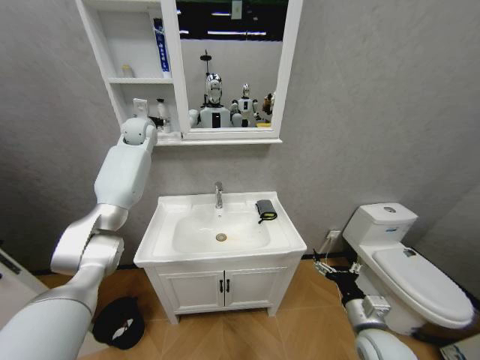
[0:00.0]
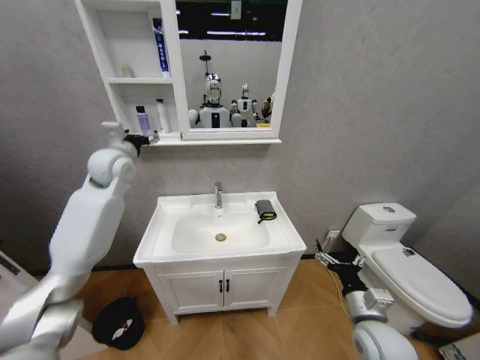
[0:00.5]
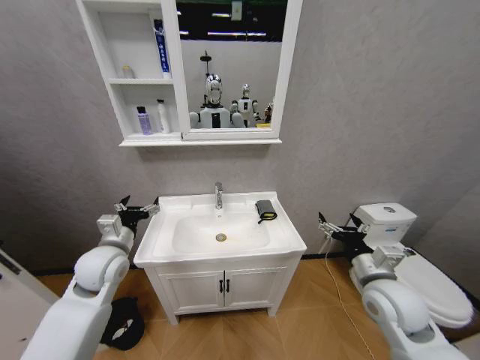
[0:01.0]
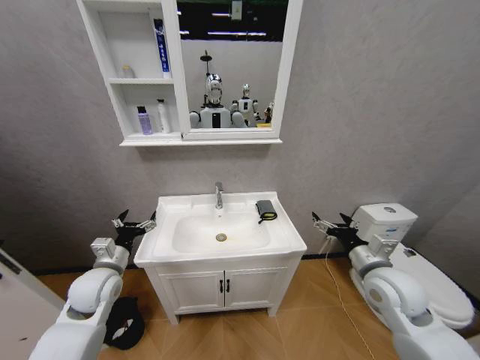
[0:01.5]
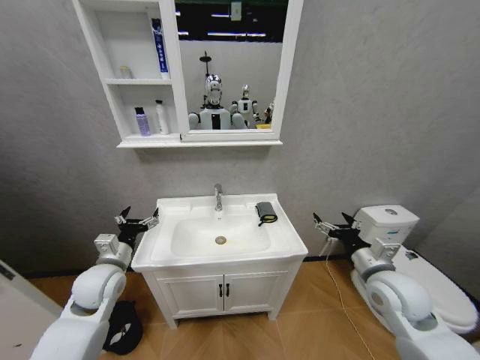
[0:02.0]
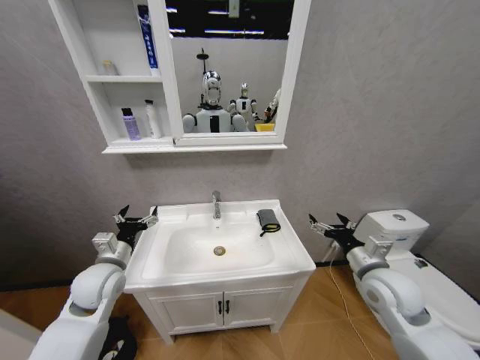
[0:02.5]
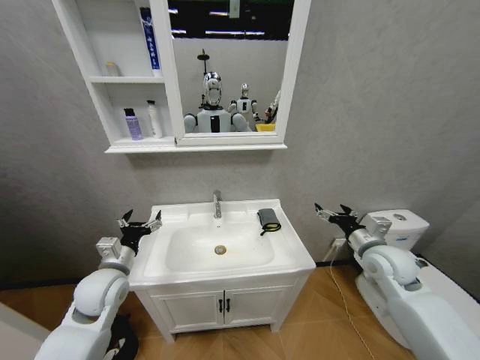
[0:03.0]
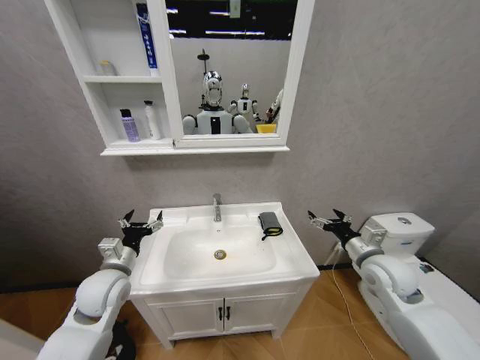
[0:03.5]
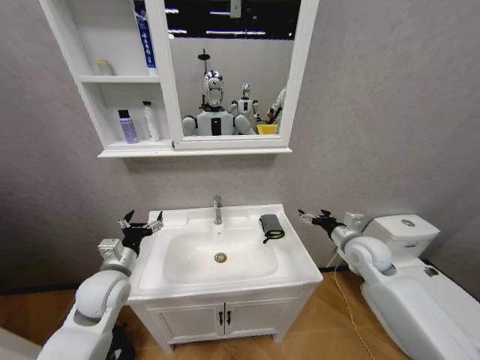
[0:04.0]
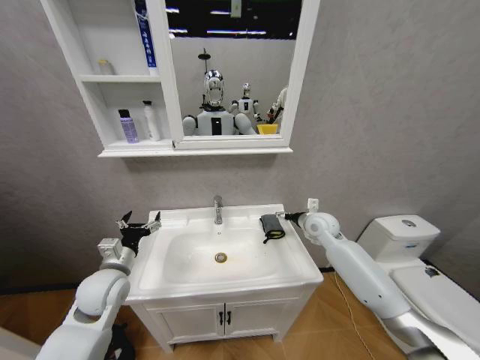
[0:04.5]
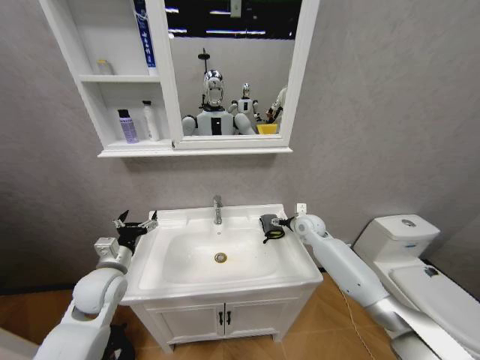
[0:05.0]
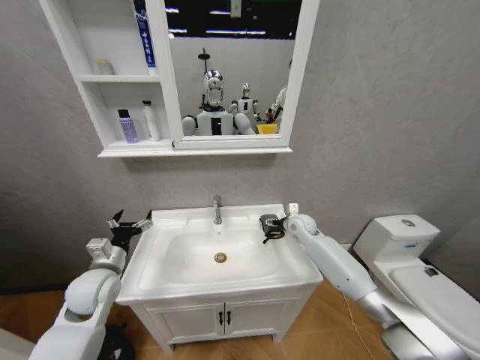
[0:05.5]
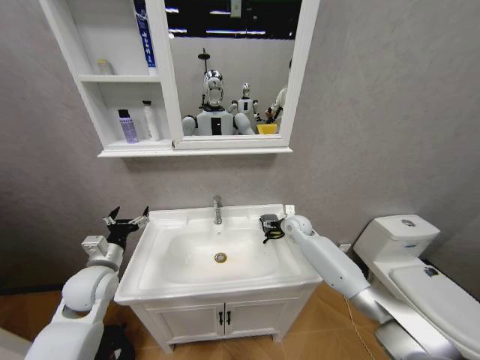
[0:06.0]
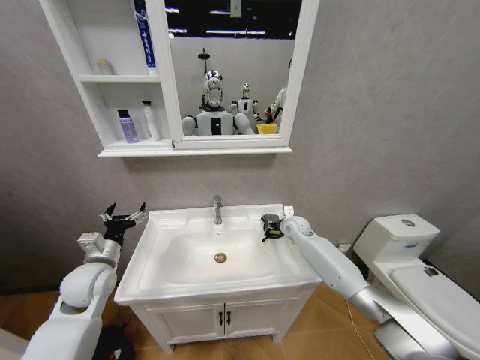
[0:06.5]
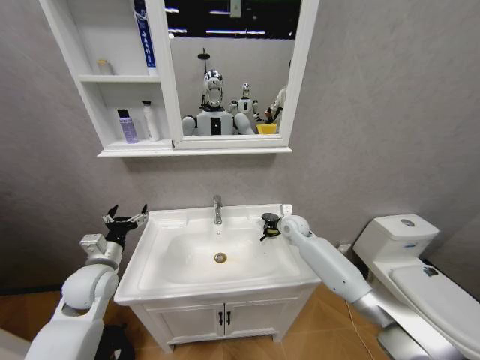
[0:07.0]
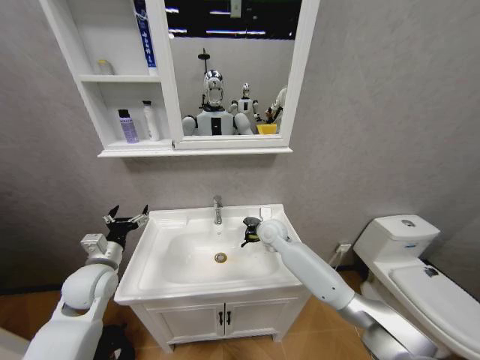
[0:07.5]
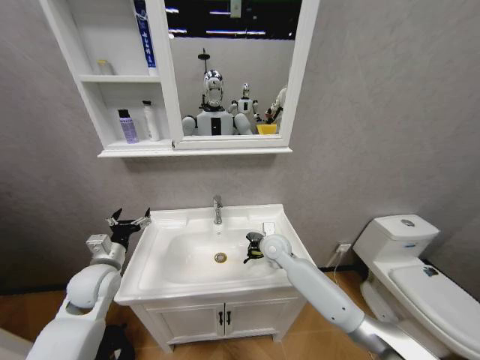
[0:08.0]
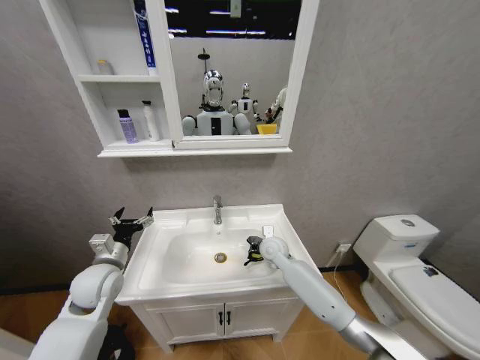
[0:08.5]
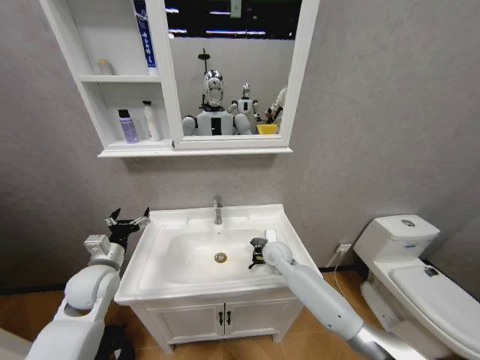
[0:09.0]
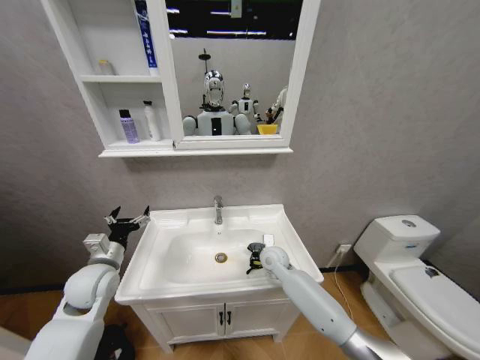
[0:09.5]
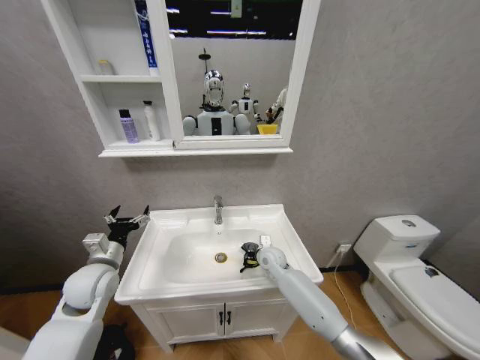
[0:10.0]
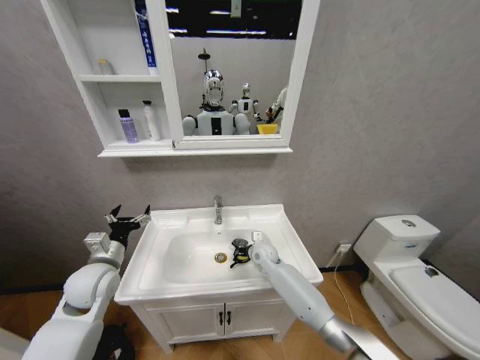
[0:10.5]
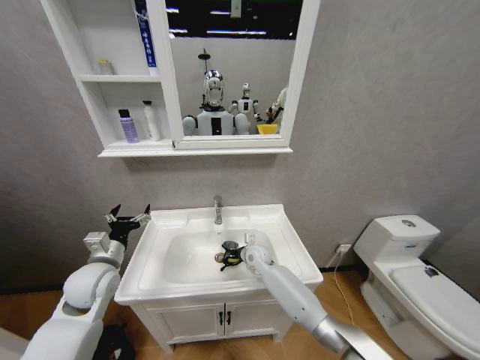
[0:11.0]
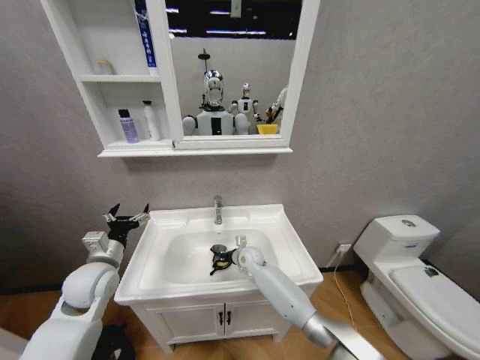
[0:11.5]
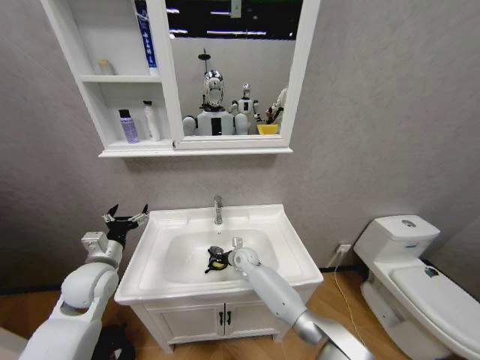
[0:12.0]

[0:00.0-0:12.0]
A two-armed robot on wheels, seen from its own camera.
Task of the whole recording: Move facial cleanser and shampoo from washbasin to cabinet, then wipe washbasin with towel.
0:00.0 to 0:02.0: The right gripper moves upward and forward, some 15 cm. Meanwhile the left gripper travels backward and downward by about 40 cm.
0:02.0 to 0:04.0: The right gripper heads forward, covering roughly 10 cm.
0:04.0 to 0:06.0: The right gripper heads forward, to the left and downward, covering approximately 20 cm.
0:06.0 to 0:08.0: The right gripper heads to the left and backward, covering about 15 cm, and closes.
0:08.0 to 0:10.0: The right gripper is displaced downward by approximately 10 cm.
0:10.0 to 0:12.0: The right gripper moves to the left, approximately 10 cm.

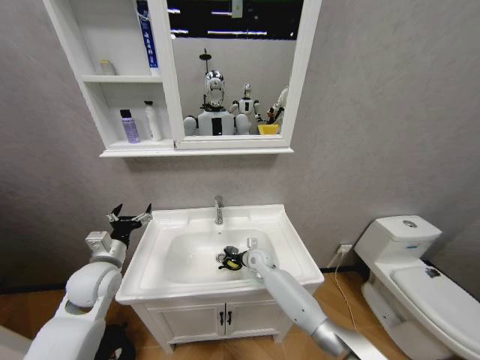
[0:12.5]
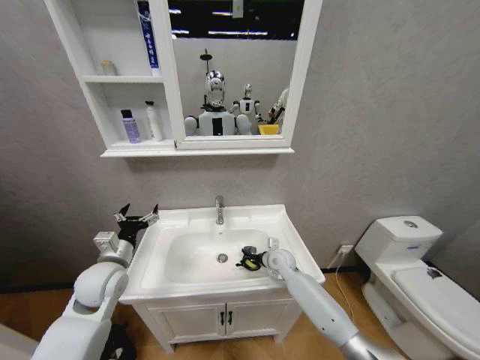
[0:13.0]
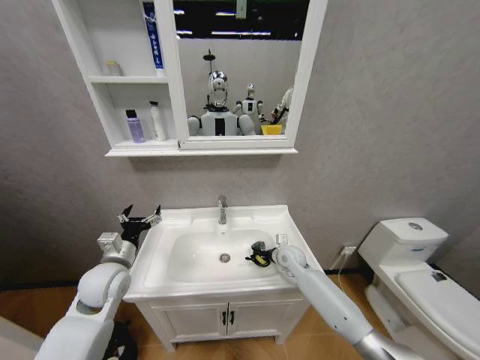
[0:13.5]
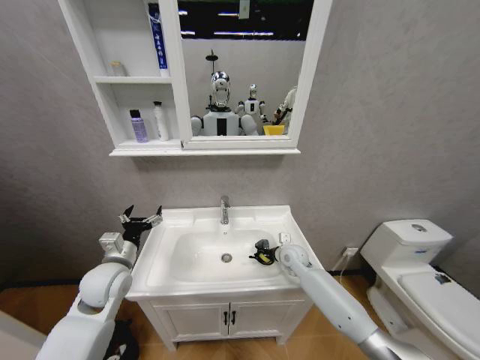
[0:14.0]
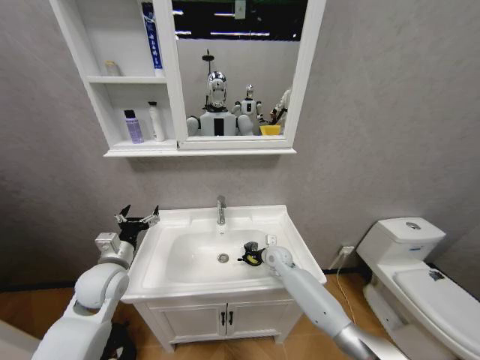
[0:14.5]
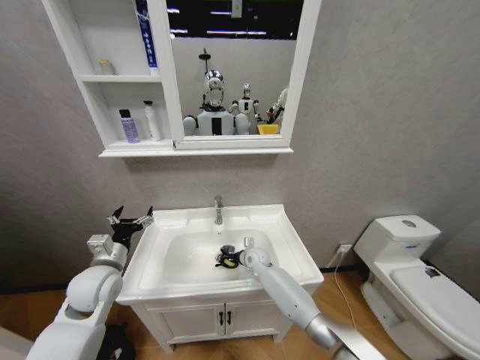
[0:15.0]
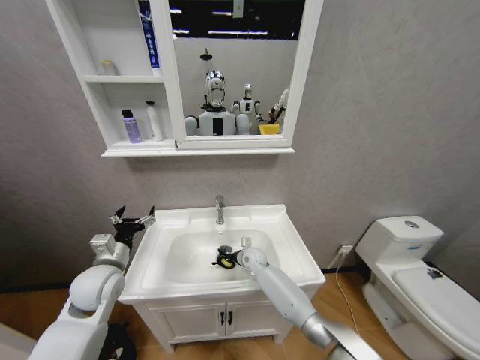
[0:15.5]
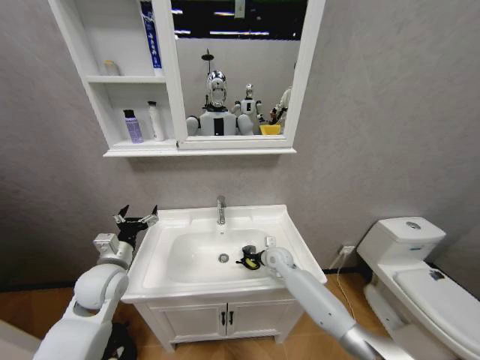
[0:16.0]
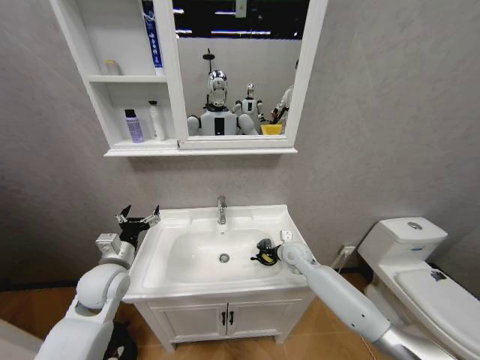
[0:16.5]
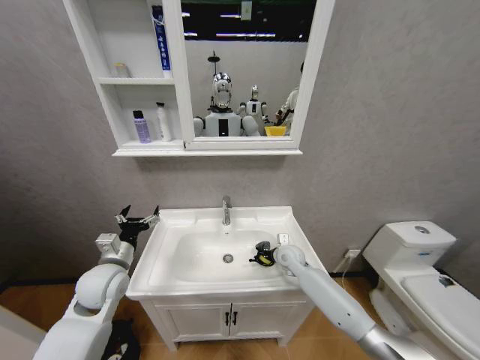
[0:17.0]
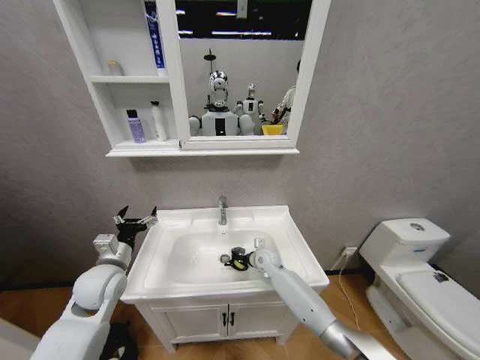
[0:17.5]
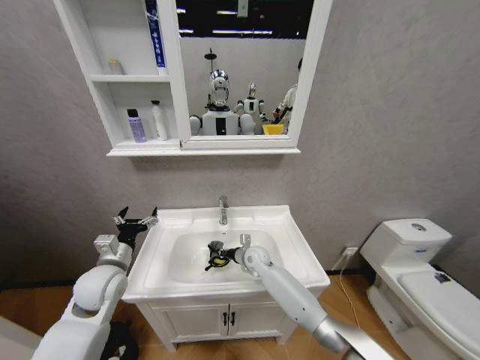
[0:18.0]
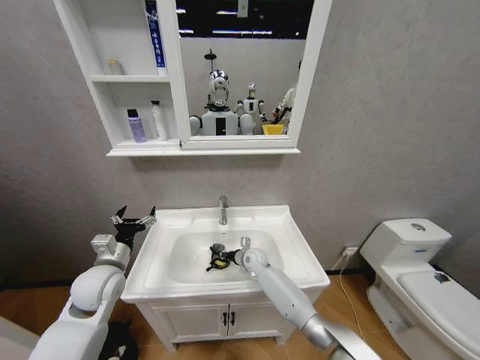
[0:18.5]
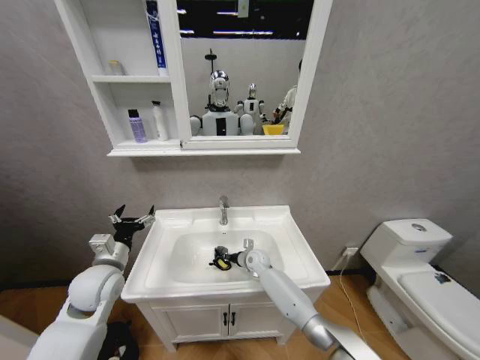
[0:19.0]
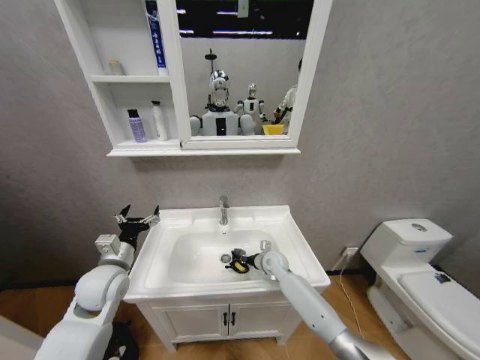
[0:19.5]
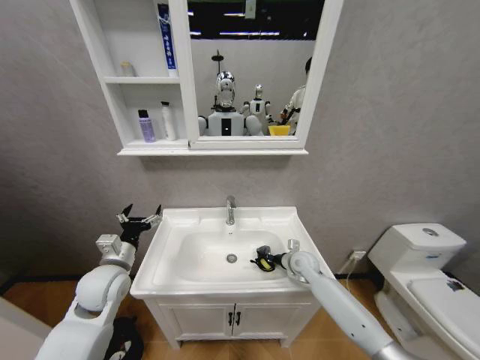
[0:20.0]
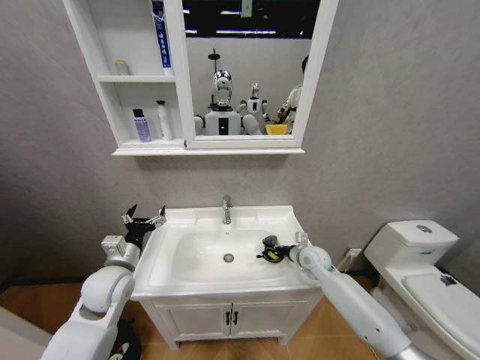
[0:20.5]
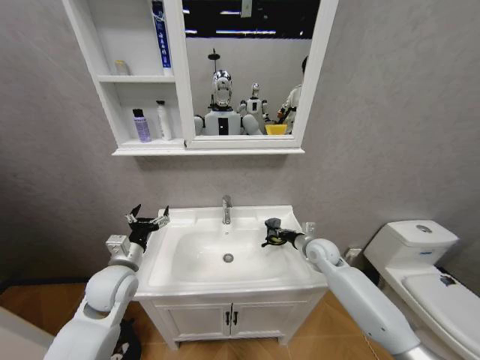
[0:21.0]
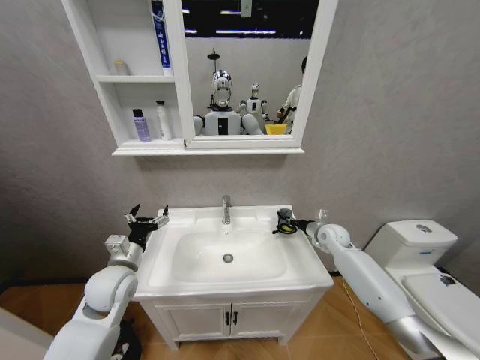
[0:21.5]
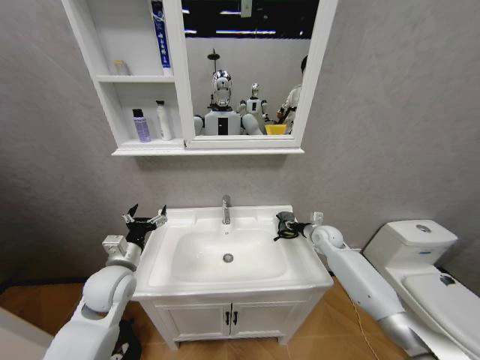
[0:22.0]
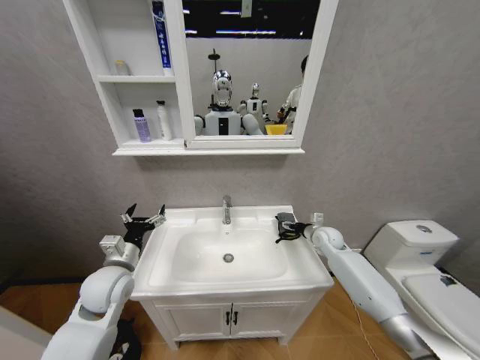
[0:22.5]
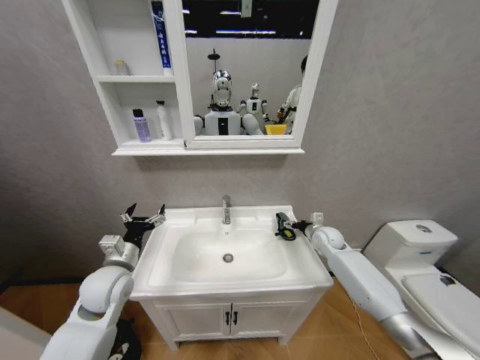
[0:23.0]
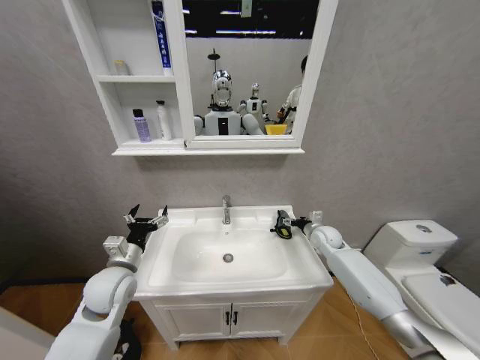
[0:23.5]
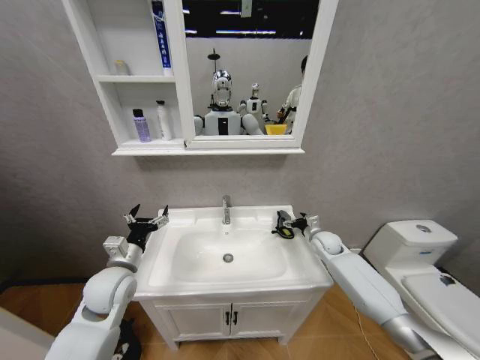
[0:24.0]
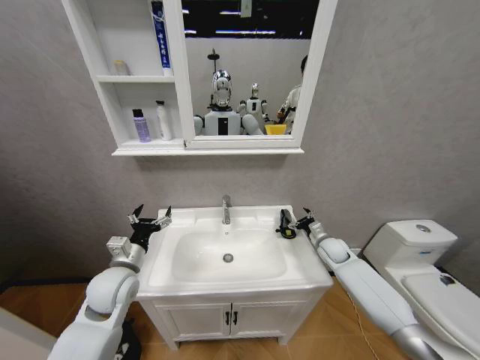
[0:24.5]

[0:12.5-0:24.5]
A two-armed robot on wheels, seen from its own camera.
Task of the whole recording: Move facial cleanser and shampoo from washbasin to cabinet, then wipe washbasin with towel.
0:12.5 to 0:14.5: The right gripper travels to the right by some 5 cm.
0:14.5 to 0:16.5: The right gripper shifts about 5 cm upward.
0:16.5 to 0:18.5: The right gripper is displaced to the left and downward by about 15 cm.
0:18.5 to 0:20.5: The right gripper is displaced to the right and upward by approximately 20 cm.
0:20.5 to 0:22.5: The right gripper travels to the right and forward by roughly 10 cm, and opens its fingers.
0:22.5 to 0:24.5: The right gripper ends up some 5 cm from where it was.

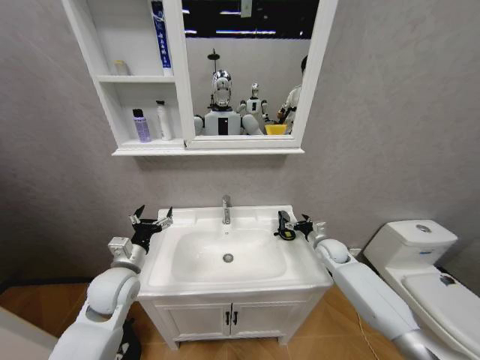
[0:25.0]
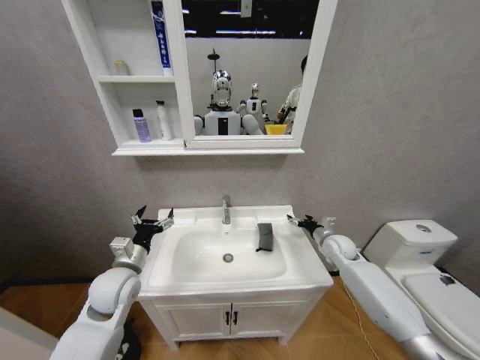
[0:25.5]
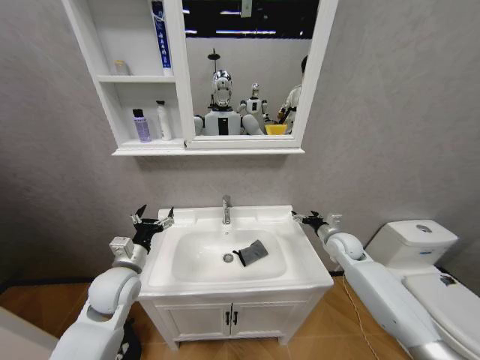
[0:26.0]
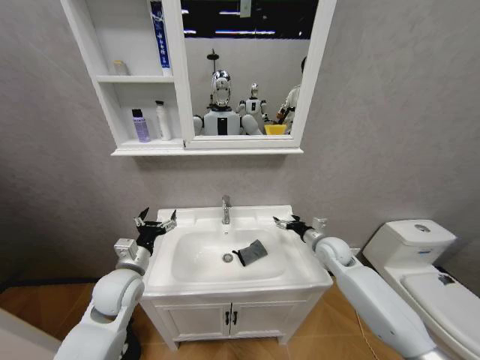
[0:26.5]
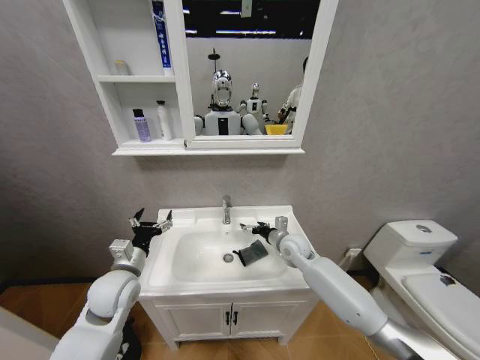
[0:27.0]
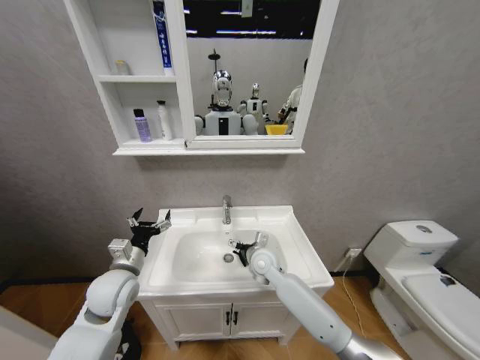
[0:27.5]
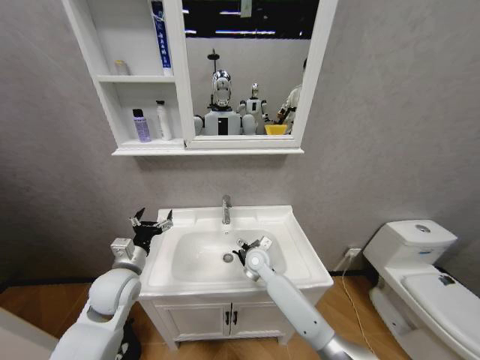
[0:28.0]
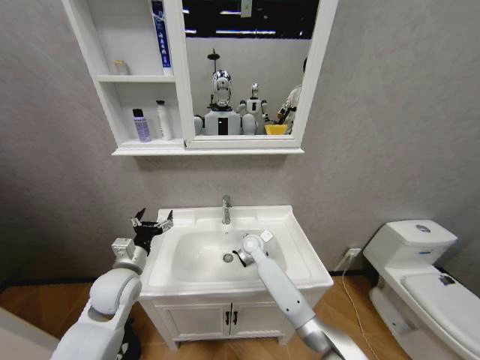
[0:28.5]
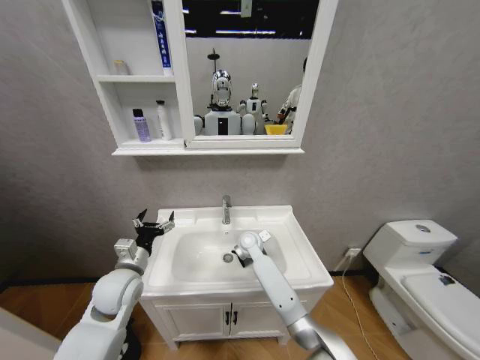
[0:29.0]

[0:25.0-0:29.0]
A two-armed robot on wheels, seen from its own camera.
Task of the whole recording: Move facial cleanser and shampoo from washbasin to cabinet, then wipe washbasin with towel.
0:25.0 to 0:27.0: The right gripper heads to the left, covering roughly 15 cm.
0:27.0 to 0:29.0: The right gripper is displaced to the left by roughly 15 cm.
